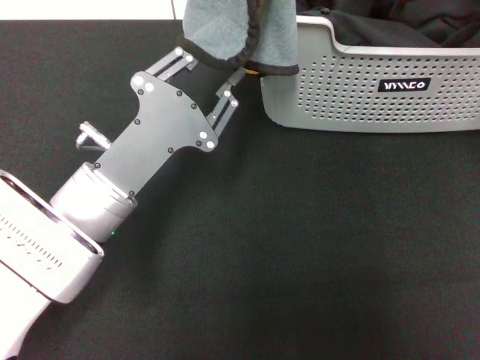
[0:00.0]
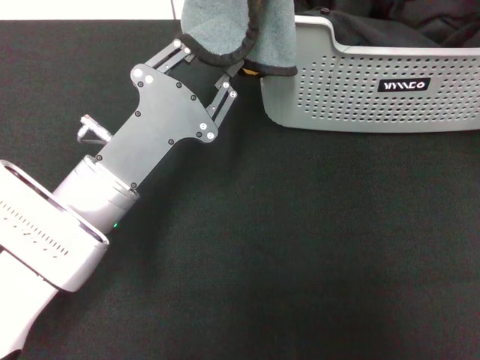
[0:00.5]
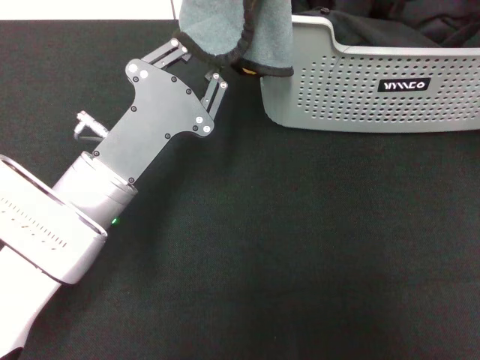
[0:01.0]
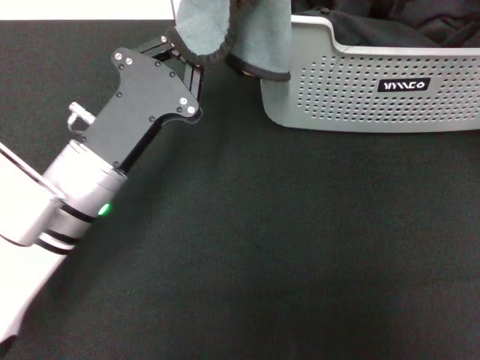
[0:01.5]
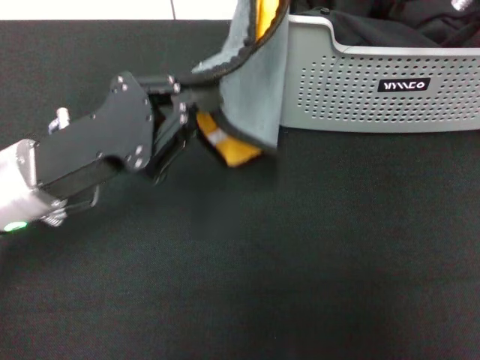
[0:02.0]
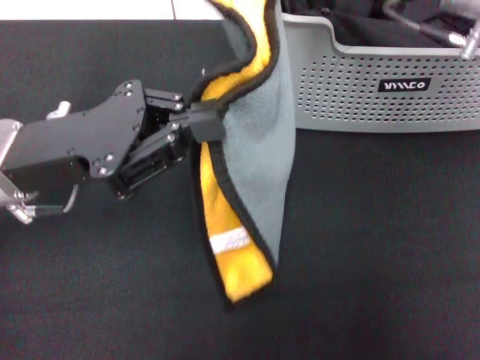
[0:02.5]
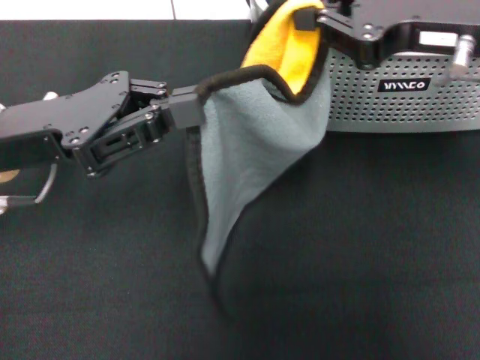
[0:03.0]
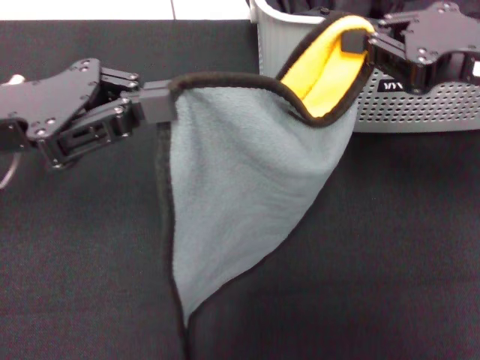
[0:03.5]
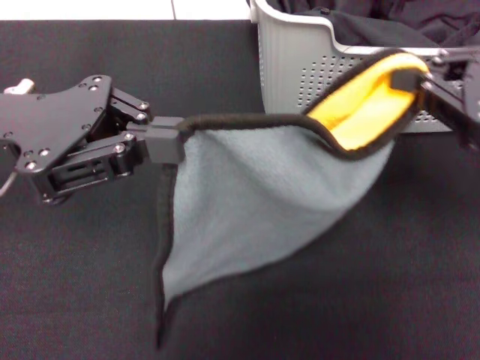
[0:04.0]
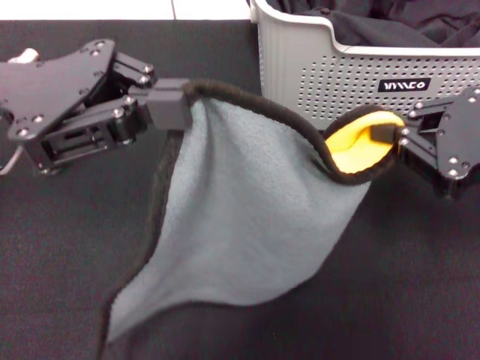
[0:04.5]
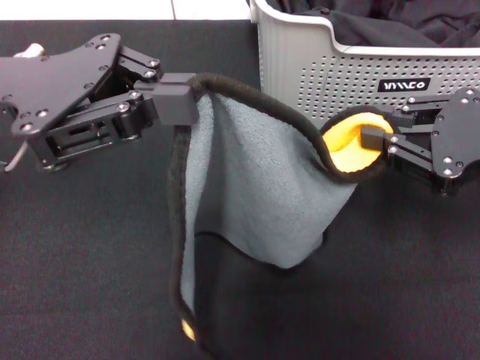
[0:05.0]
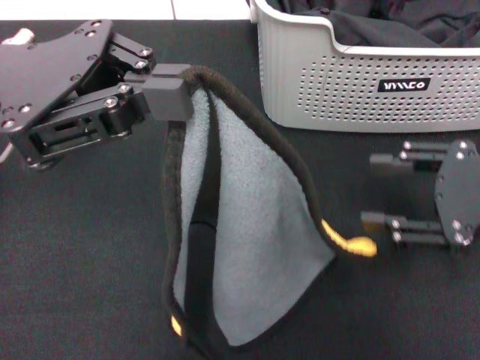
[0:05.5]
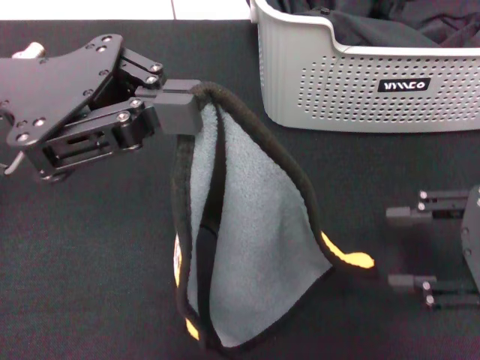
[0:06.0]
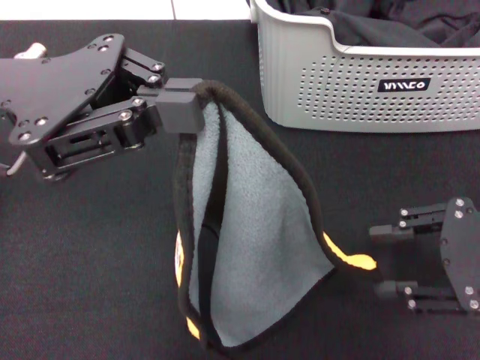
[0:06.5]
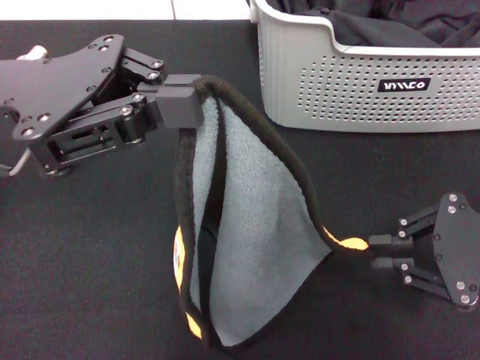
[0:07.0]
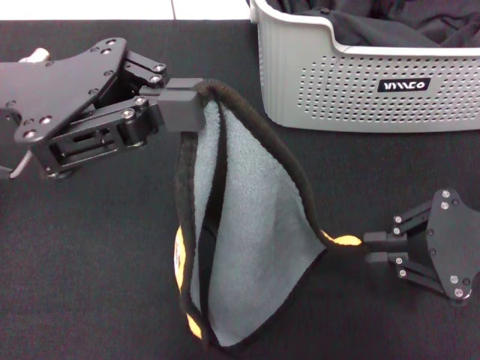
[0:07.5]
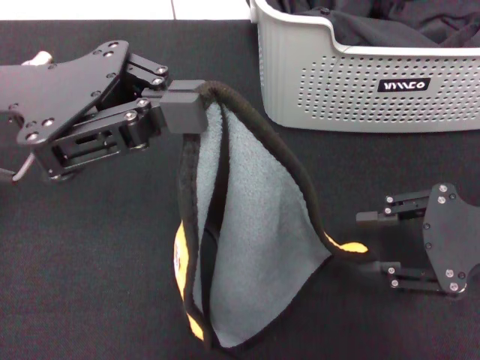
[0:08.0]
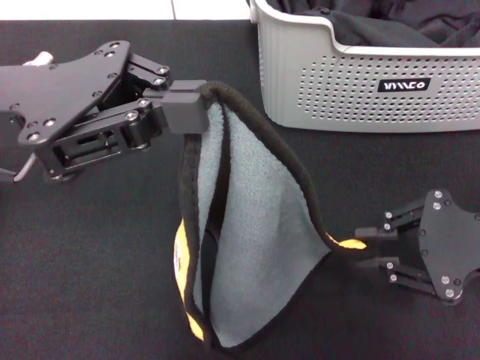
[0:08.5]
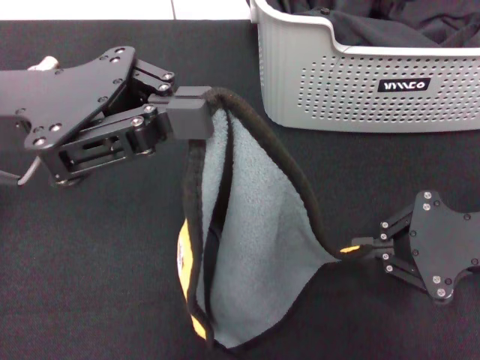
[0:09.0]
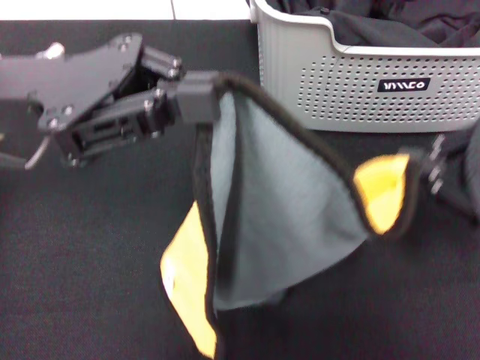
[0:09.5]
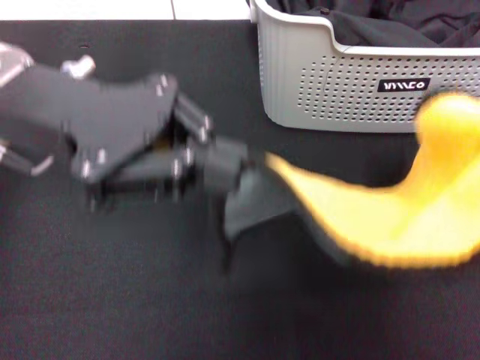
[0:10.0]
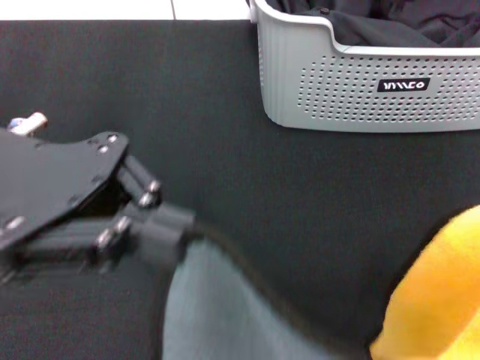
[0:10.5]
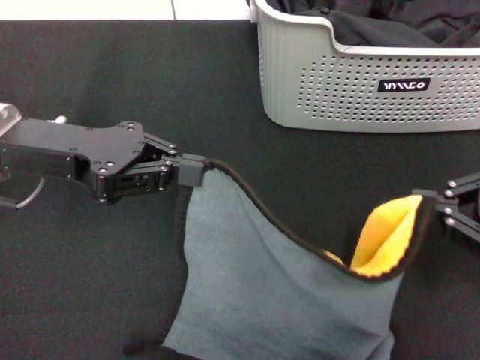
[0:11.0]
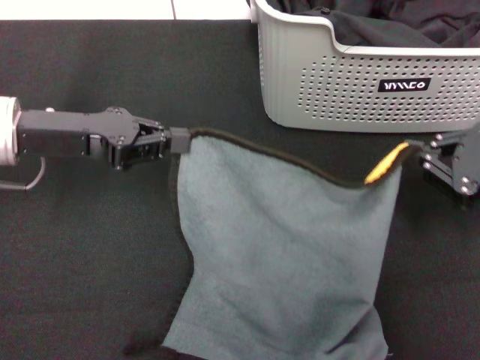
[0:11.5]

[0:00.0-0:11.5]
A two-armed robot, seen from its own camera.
Task of the whole recording: pick up the towel from the storage box and lay it flat on the black tablecloth.
0:00.0 to 0:02.0: The left gripper heads to the left, covering approximately 5 cm, and closes.
0:02.0 to 0:04.0: The left gripper goes some 10 cm upward, while the right gripper shifts approximately 20 cm backward and to the right.
0:04.0 to 0:06.0: The right gripper is displaced downward by roughly 5 cm, and opens.
0:06.0 to 0:07.5: The right gripper closes its fingers.
0:09.5 to 0:11.5: The left gripper goes roughly 5 cm downward. Meanwhile the right gripper moves roughly 10 cm backward and comes back.

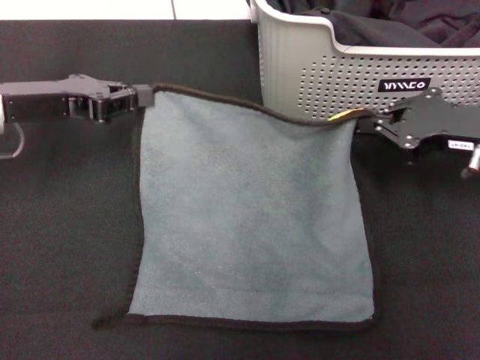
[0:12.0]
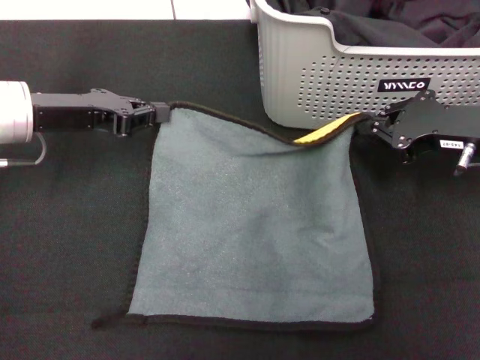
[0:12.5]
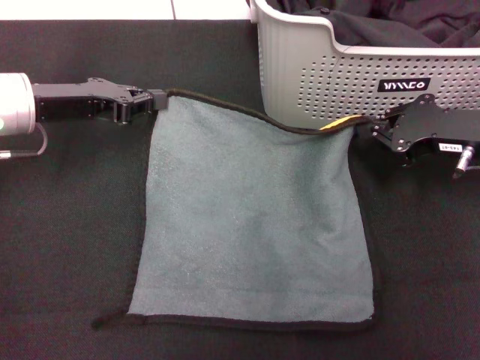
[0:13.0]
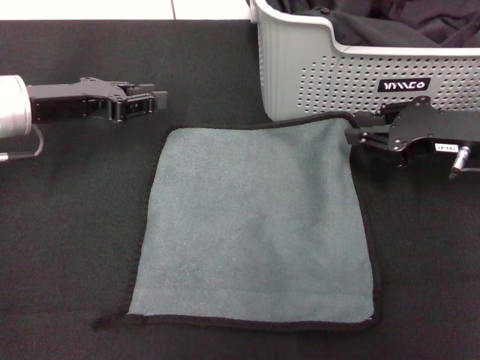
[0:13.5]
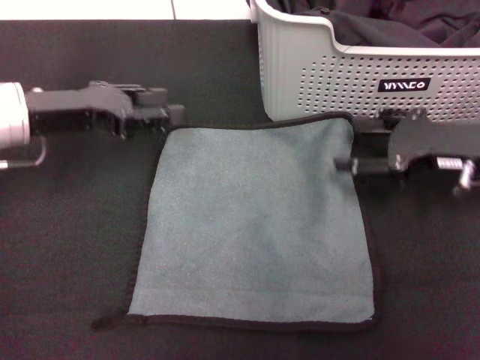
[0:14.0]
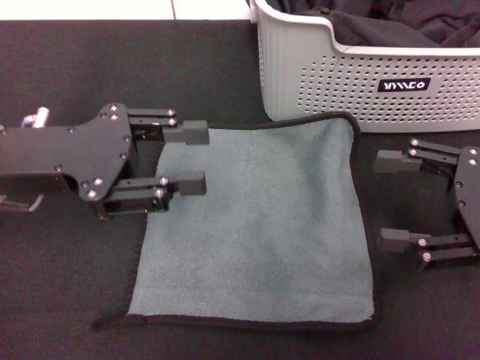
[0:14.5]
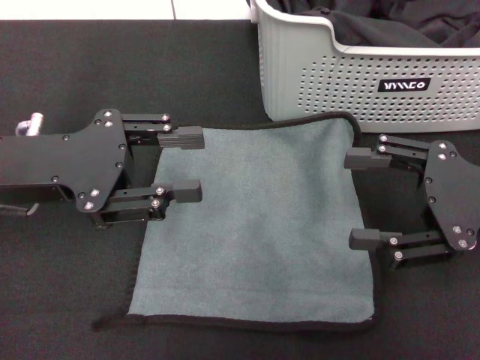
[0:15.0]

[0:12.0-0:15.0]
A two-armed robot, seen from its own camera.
Task of the whole recording: pick up the towel from the storage box and lay it flat on the black tablecloth.
0:12.0 to 0:13.5: The grippers stay close to where they were, moving slightly.
0:13.5 to 0:15.0: The grippers both shift backward by roughly 10 cm. The left gripper opens, while the right gripper opens its fingers.

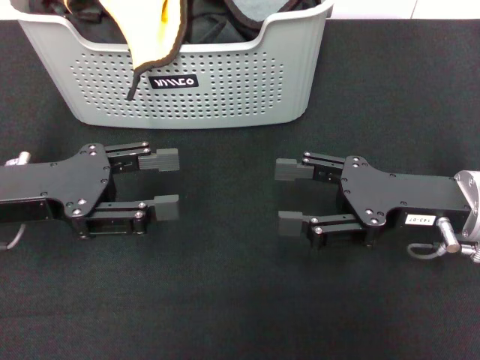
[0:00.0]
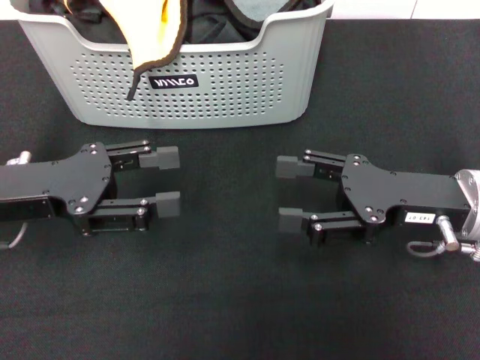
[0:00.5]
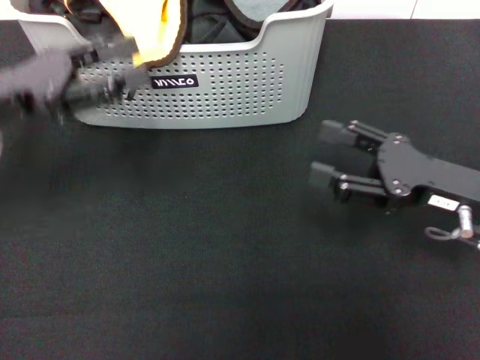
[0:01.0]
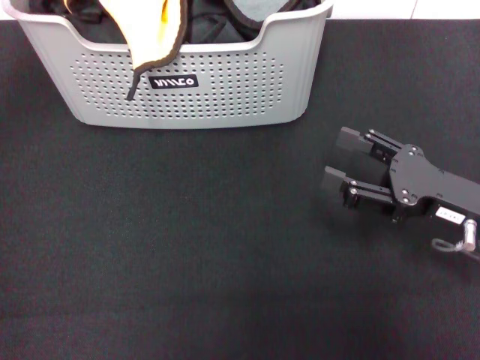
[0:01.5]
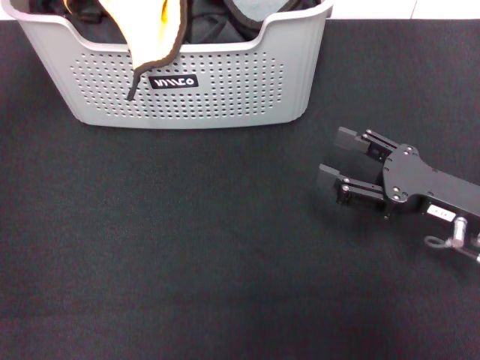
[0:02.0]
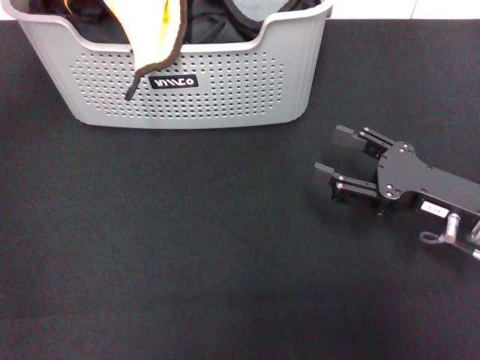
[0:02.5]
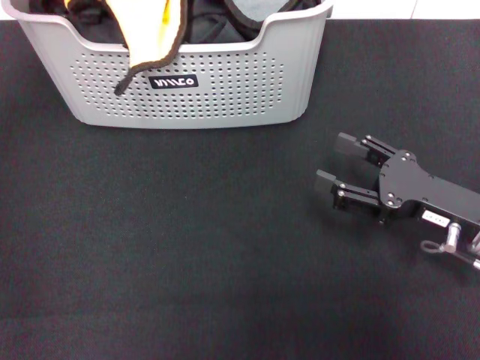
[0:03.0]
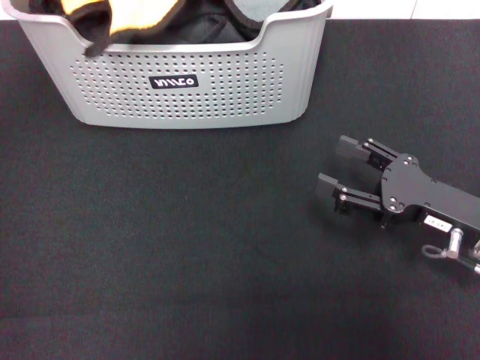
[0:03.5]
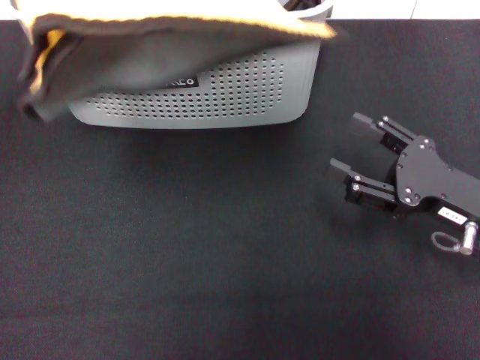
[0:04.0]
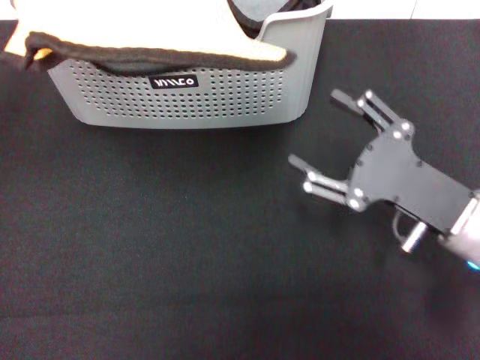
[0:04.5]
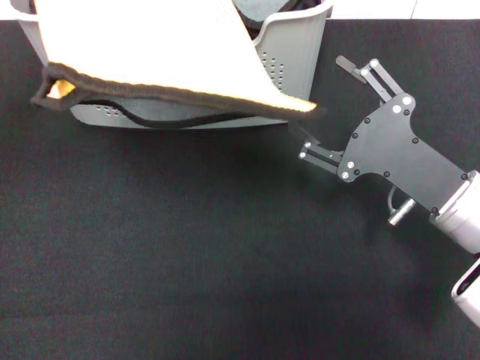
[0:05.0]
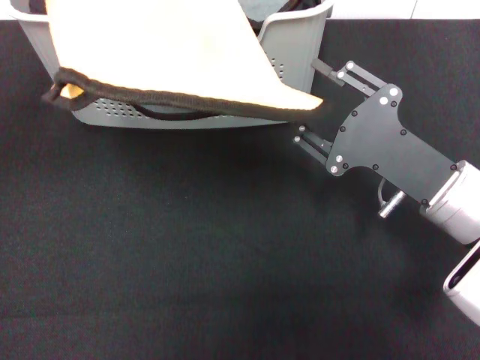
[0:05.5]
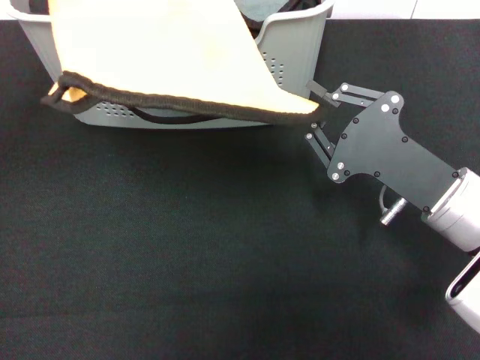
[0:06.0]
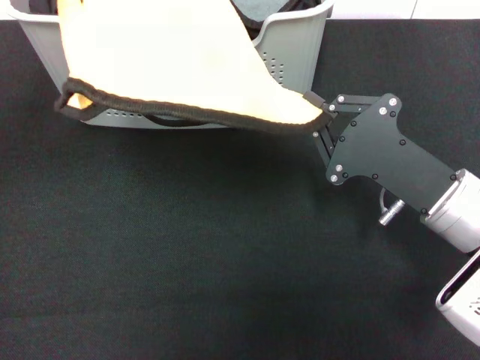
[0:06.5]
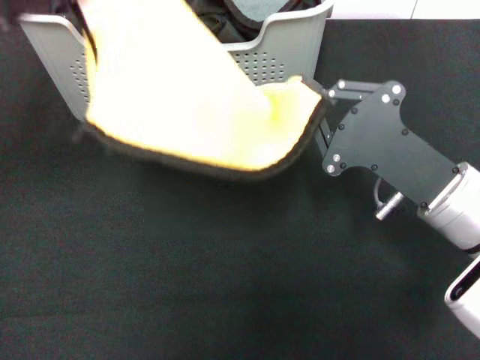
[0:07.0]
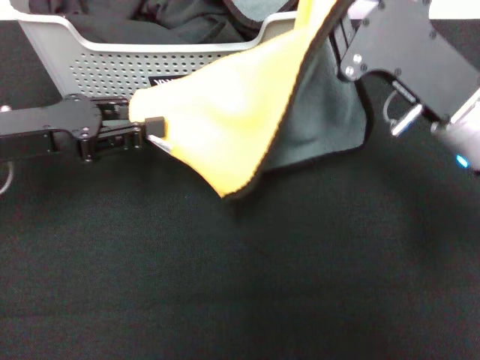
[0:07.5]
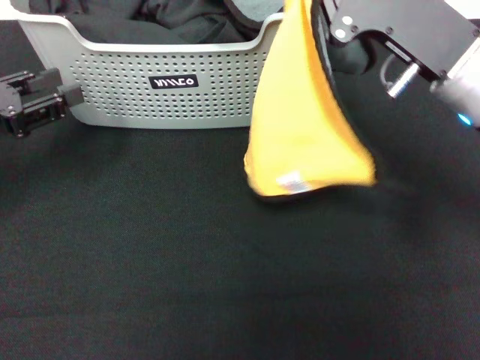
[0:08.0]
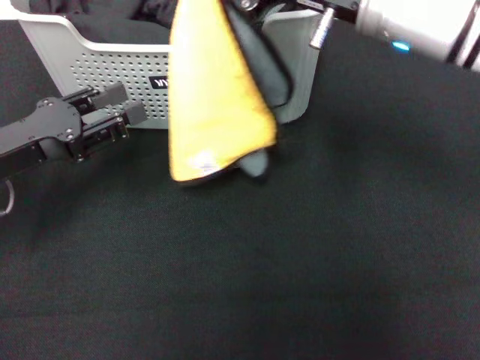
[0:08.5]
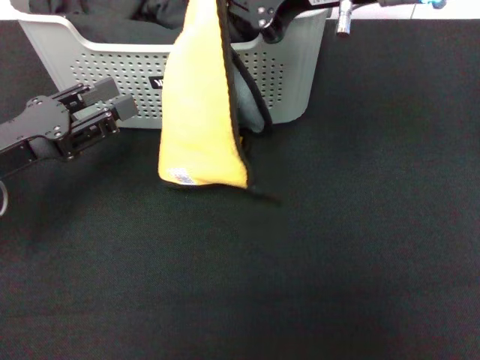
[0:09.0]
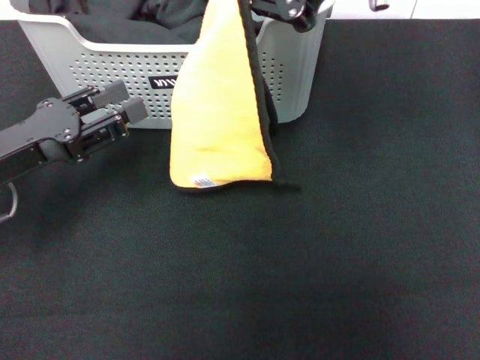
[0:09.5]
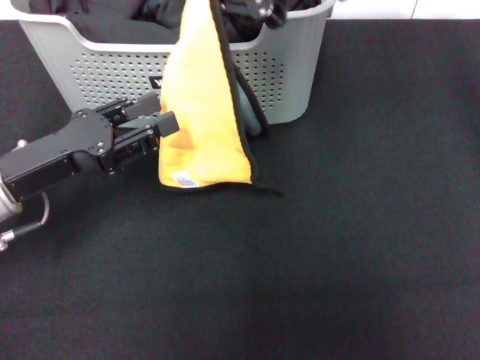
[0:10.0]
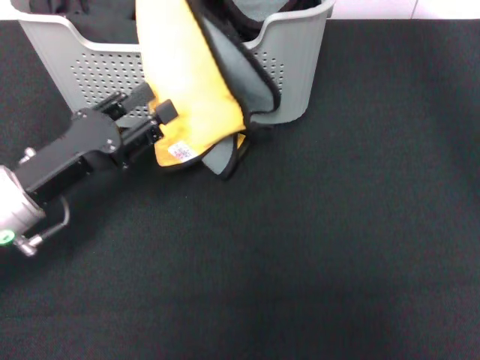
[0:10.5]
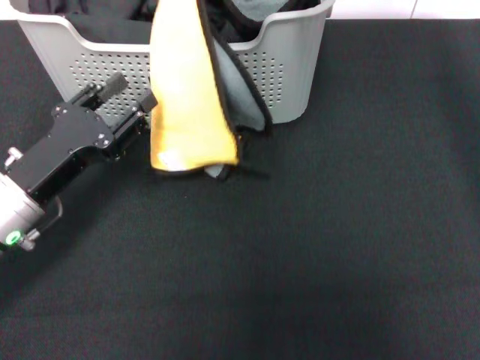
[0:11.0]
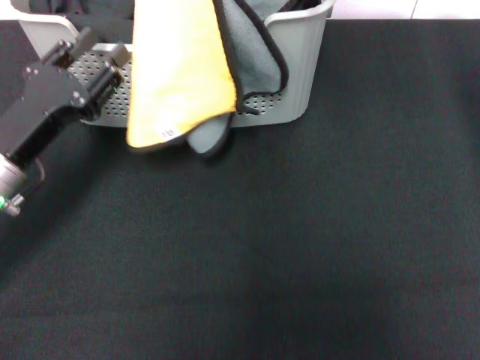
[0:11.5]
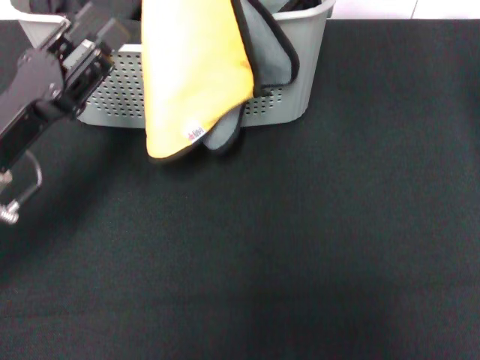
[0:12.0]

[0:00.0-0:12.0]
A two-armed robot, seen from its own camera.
Task of the whole recording: pick up the towel from the storage box and lay it flat on the black tablecloth.
Step, 0:00.0 to 0:03.0: Pick up a towel with the left gripper.
Step, 0:03.5 to 0:06.0: Spread the towel flat with the left gripper.
0:00.0 to 0:02.0: The right gripper changes place by roughly 5 cm. The left gripper moves forward and upward, about 20 cm.
0:02.0 to 0:04.0: The left gripper shifts approximately 10 cm backward and upward, and closes up.
0:04.0 to 0:06.0: The right gripper is displaced to the left by approximately 5 cm, and closes.
0:06.0 to 0:08.0: The left gripper goes roughly 15 cm downward, and opens up; the right gripper heads upward and forward, covering roughly 10 cm.
0:08.0 to 0:10.0: The right gripper travels upward, to the left and forward by roughly 20 cm; the left gripper moves to the right, about 10 cm.
